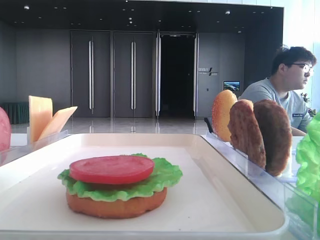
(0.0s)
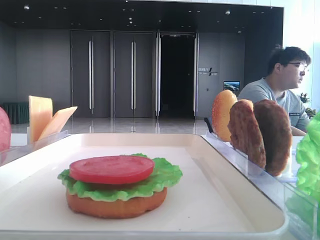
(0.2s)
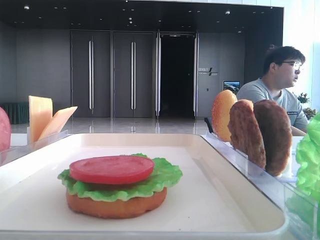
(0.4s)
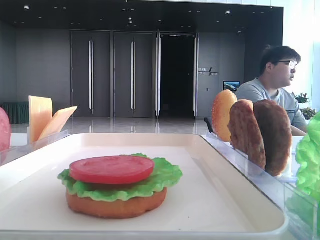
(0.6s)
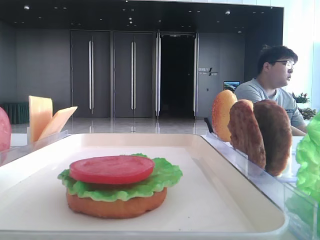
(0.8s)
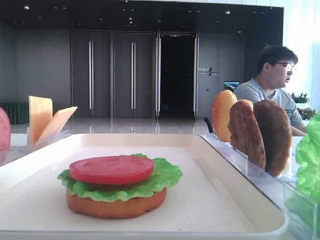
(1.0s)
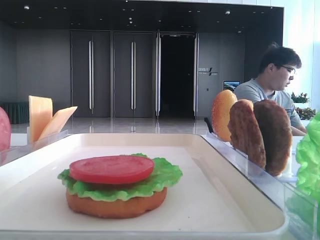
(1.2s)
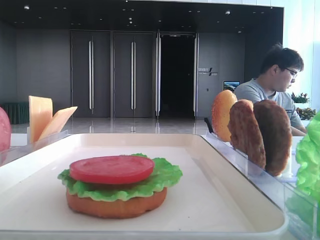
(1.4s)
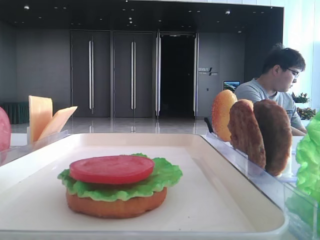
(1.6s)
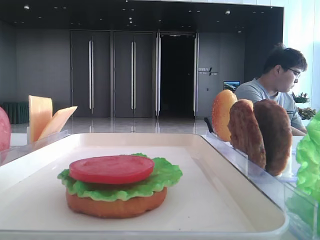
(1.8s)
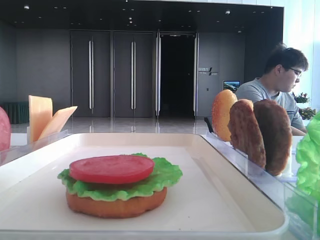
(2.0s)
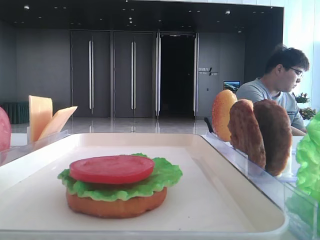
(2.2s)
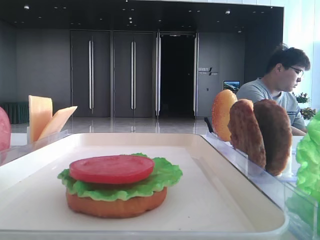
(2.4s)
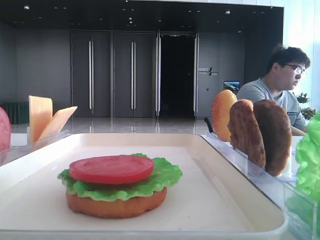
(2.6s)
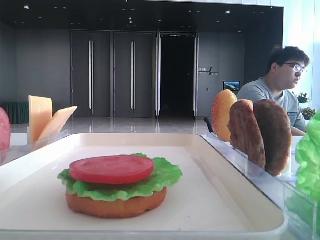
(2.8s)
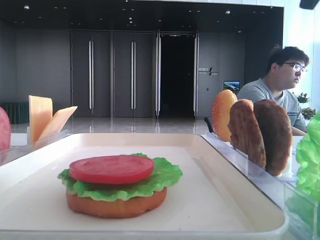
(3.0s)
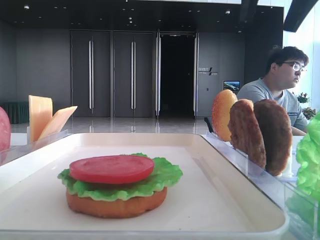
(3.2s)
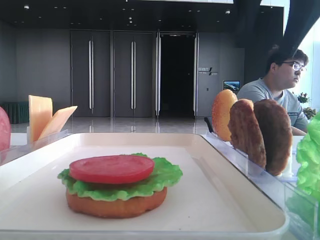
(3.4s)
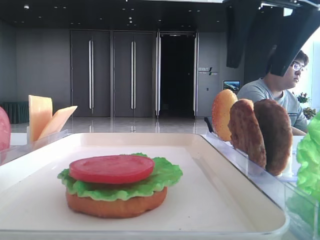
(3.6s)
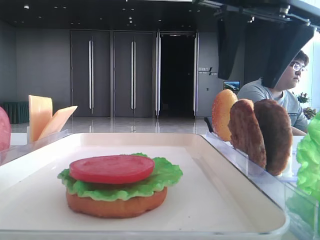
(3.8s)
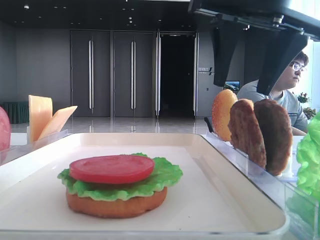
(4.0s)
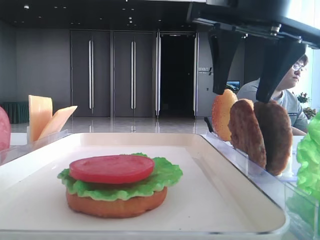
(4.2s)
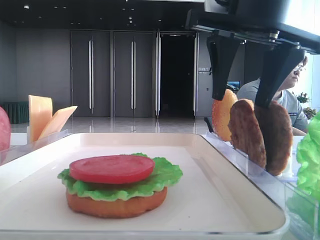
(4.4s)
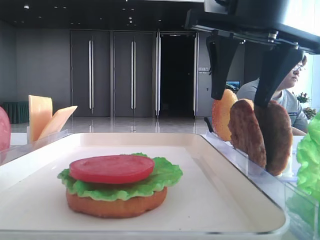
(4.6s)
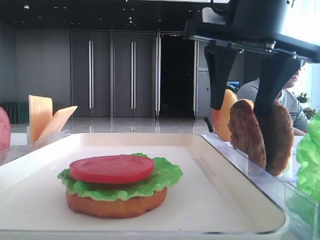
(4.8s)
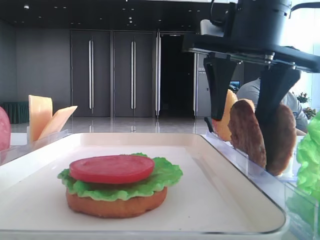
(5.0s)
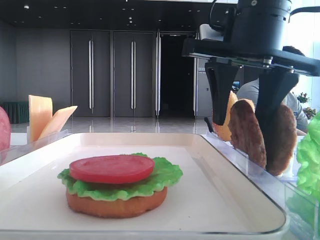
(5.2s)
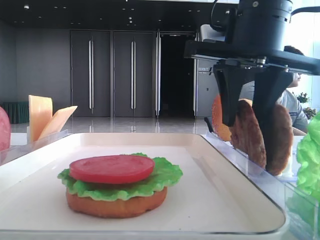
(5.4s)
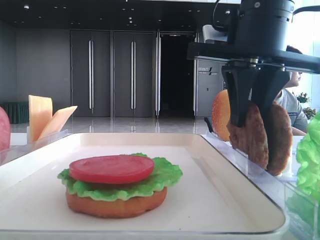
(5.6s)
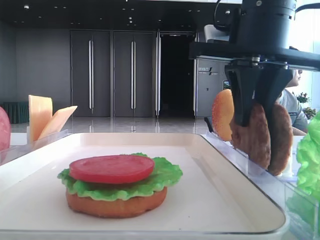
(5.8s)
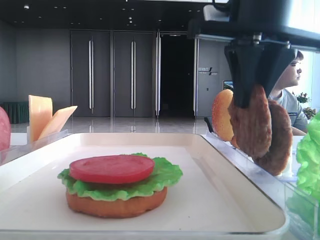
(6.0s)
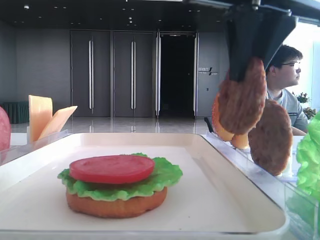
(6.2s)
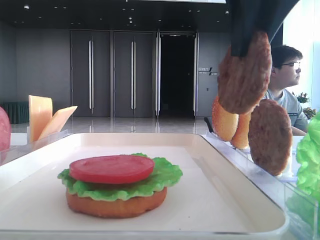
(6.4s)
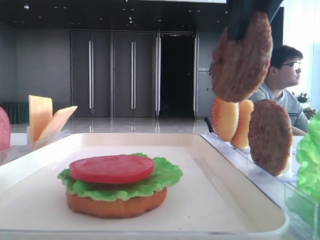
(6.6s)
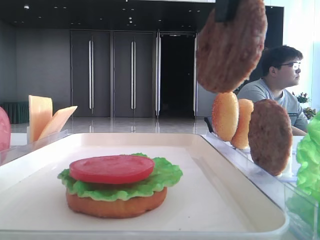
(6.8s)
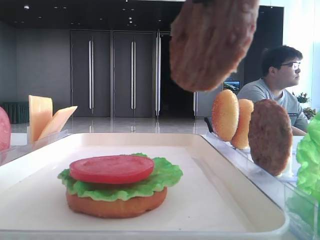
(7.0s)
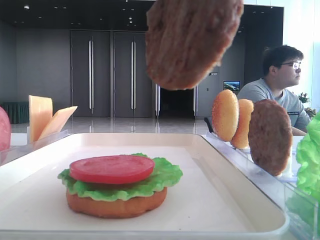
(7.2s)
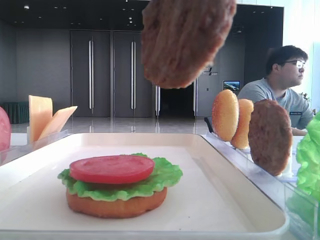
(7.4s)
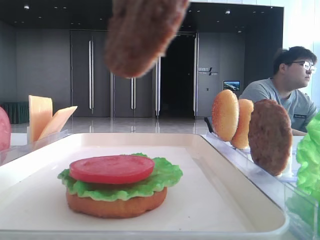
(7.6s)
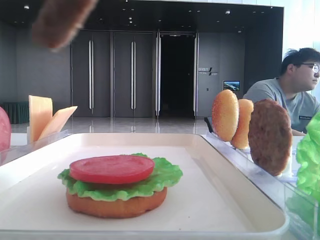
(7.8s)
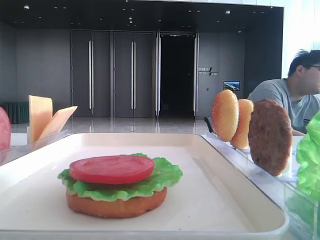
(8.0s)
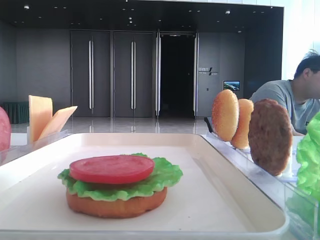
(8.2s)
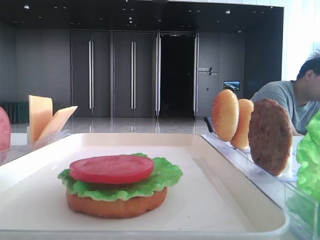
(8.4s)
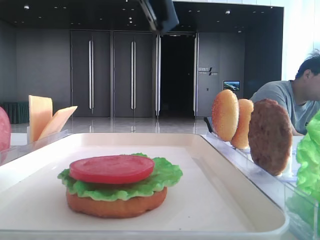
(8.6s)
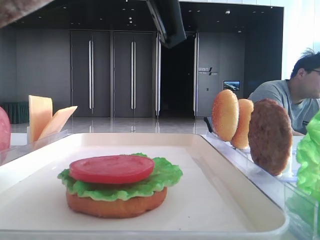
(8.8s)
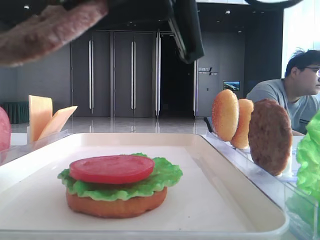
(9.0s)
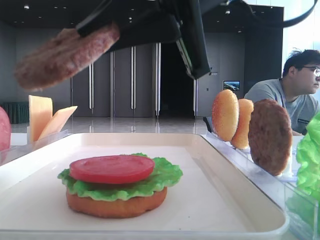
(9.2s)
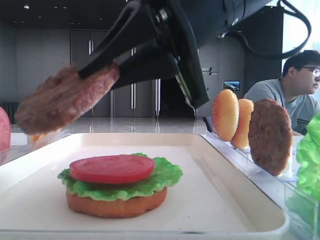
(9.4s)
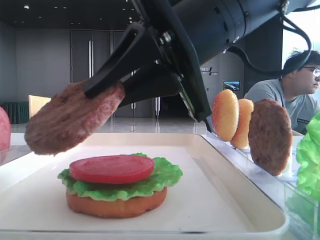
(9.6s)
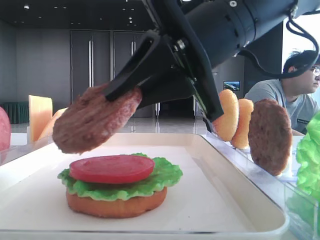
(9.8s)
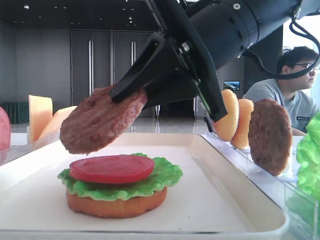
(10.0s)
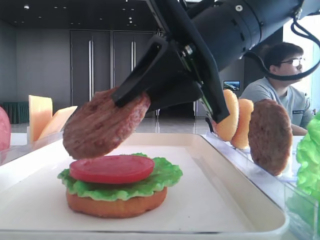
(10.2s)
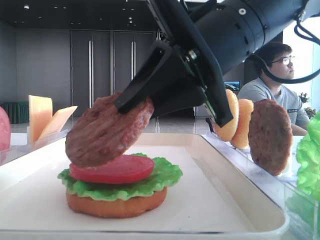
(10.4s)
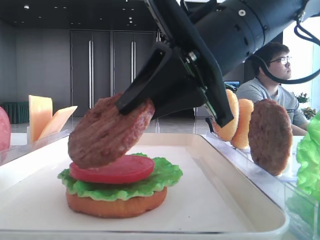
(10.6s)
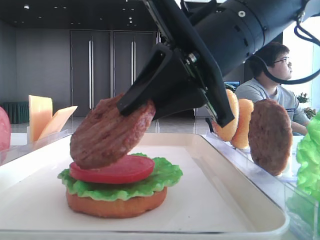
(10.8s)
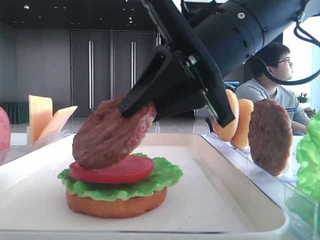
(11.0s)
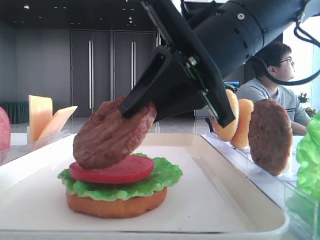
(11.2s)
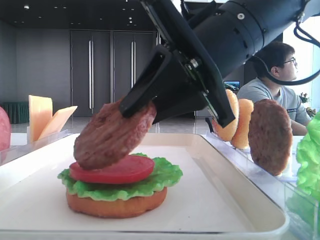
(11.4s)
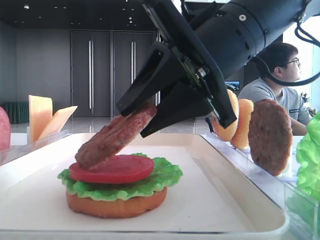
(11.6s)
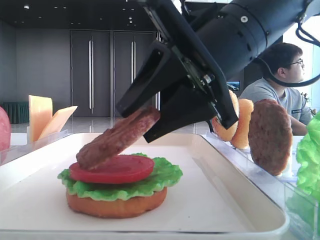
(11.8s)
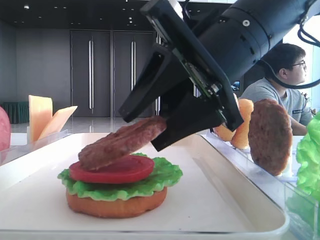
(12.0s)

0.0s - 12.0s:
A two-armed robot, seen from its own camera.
Step, 0.0s - 5.6s: Grab the patty with the right hand.
1.6s - 3.0s: The right gripper goes about 15 cm to the left and forward.
3.0s - 4.4s: The right gripper is displaced downward and forward by roughly 10 cm.
4.4s - 6.0s: The right gripper closes its fingers.
6.0s - 7.6s: The right gripper moves backward, upward and to the left, about 20 cm.
7.6s - 9.0s: The right gripper is displaced forward and downward by about 10 cm.
9.0s - 10.4s: The right gripper travels downward by about 5 cm.
10.4s - 12.0s: The left gripper closes its fingers; the right gripper opens.

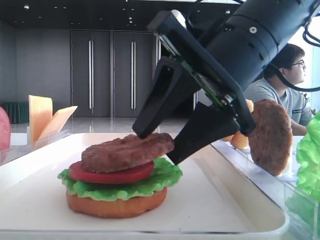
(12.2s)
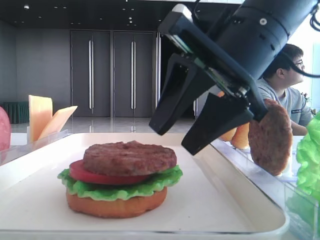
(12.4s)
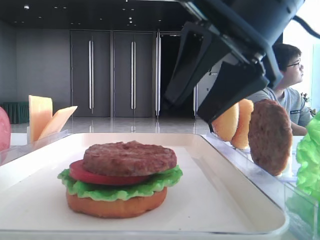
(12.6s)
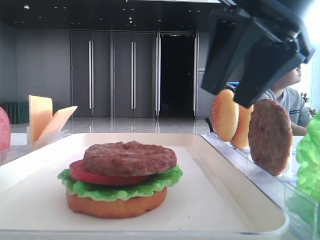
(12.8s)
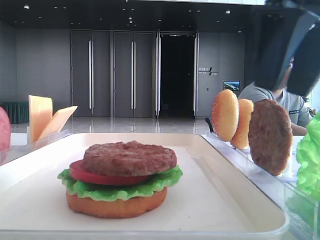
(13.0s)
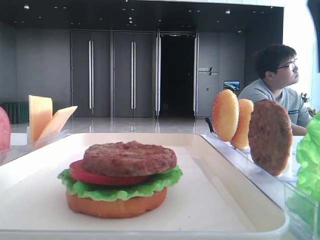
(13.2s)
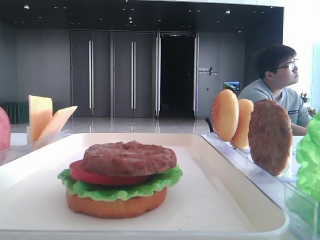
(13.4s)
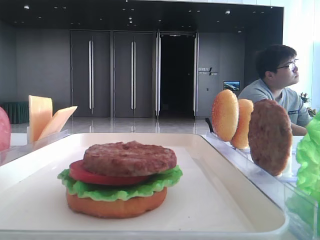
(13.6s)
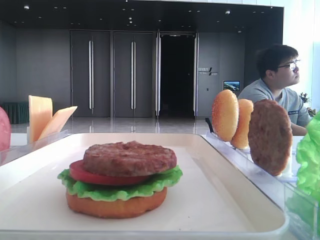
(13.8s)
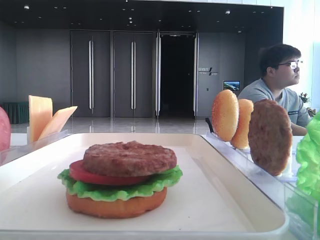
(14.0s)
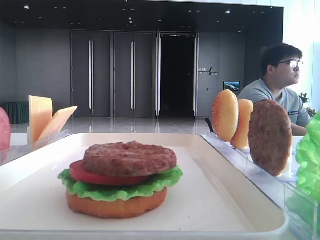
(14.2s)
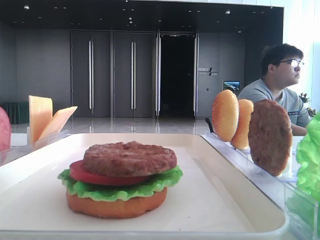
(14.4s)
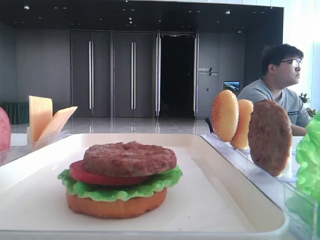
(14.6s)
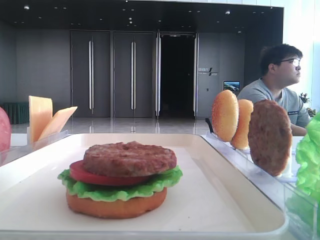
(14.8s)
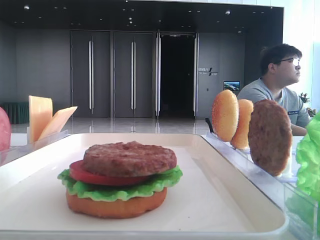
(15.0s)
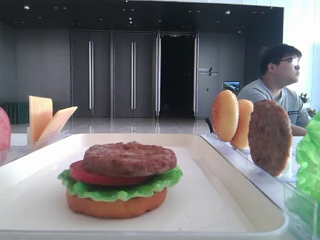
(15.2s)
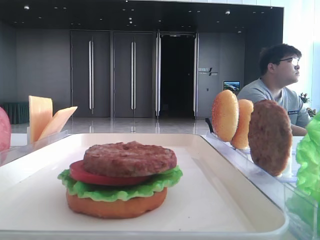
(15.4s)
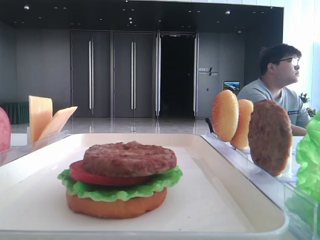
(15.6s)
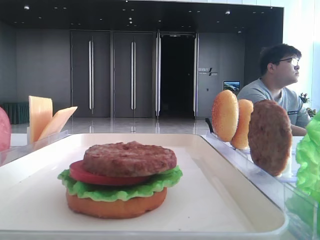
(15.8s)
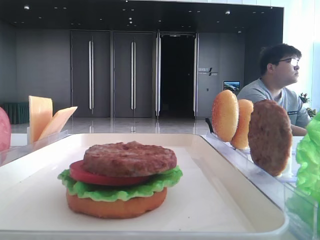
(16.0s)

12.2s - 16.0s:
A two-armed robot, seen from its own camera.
12.2s - 13.4s: The right gripper heads to the right and upward, covering some 20 cm.
13.4s - 14.8s: The right gripper is displaced backward by some 20 cm.

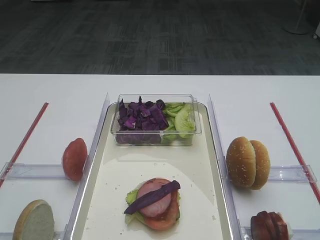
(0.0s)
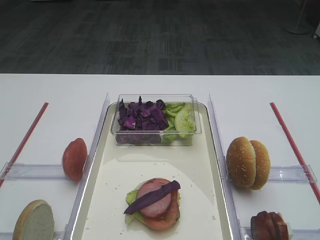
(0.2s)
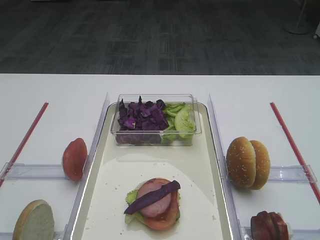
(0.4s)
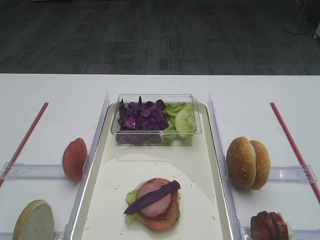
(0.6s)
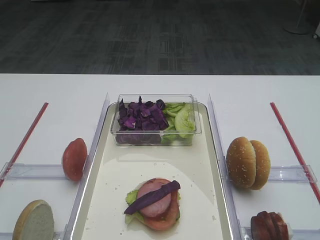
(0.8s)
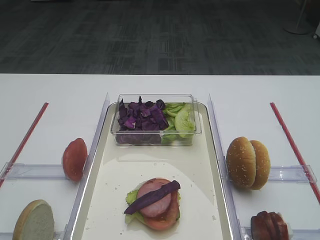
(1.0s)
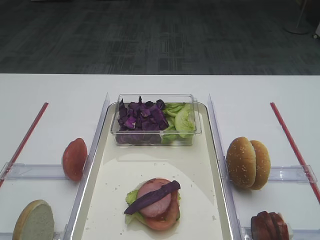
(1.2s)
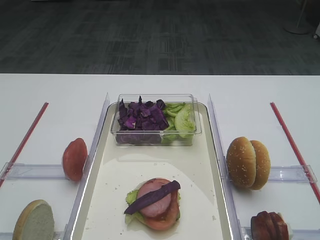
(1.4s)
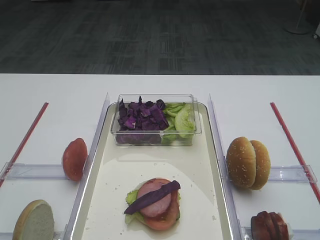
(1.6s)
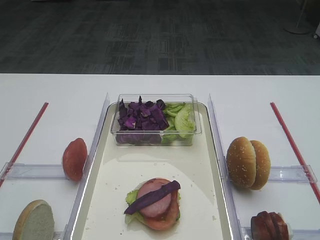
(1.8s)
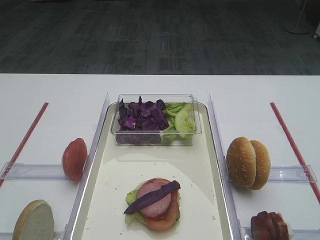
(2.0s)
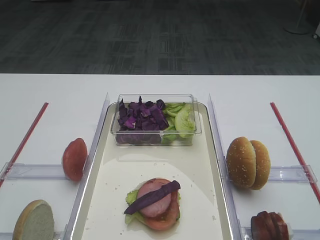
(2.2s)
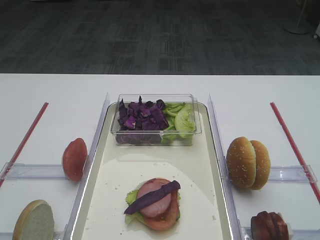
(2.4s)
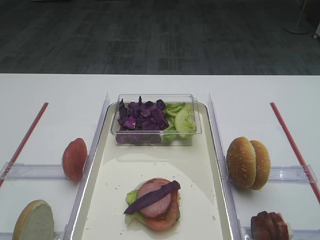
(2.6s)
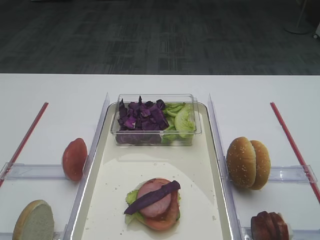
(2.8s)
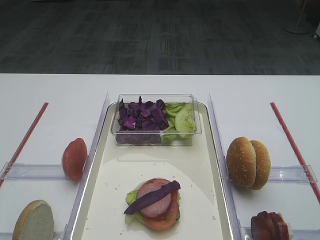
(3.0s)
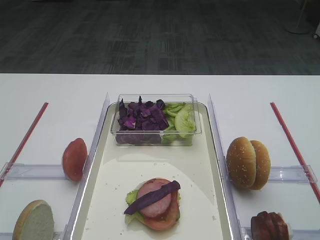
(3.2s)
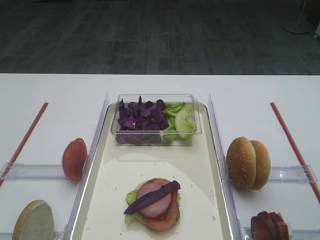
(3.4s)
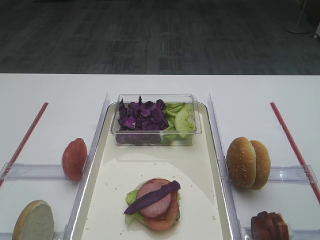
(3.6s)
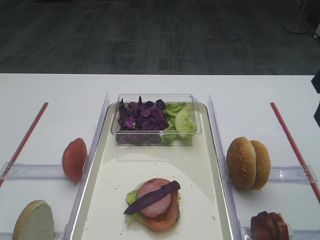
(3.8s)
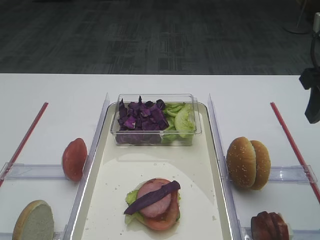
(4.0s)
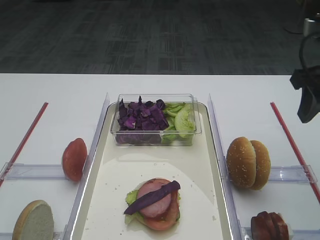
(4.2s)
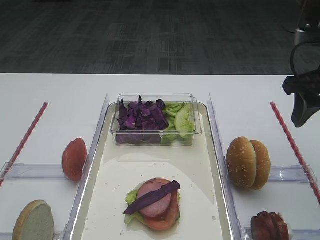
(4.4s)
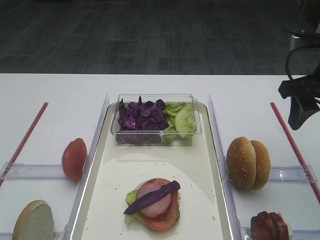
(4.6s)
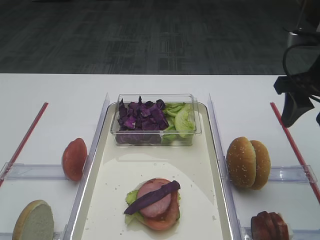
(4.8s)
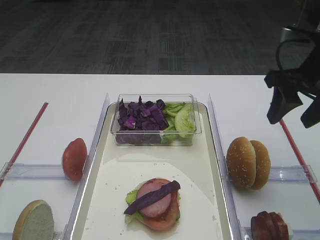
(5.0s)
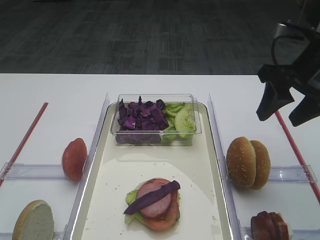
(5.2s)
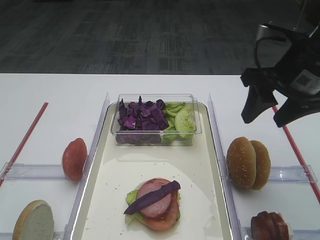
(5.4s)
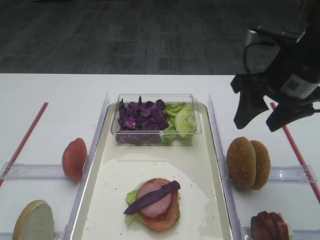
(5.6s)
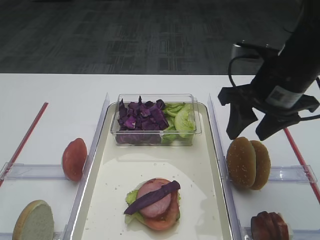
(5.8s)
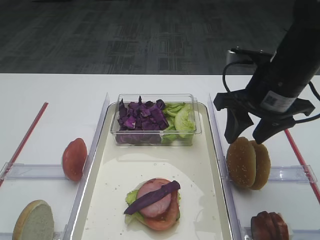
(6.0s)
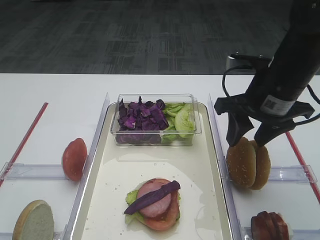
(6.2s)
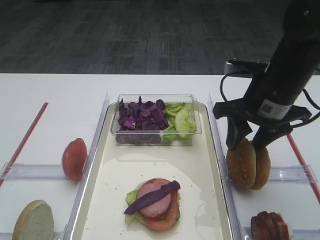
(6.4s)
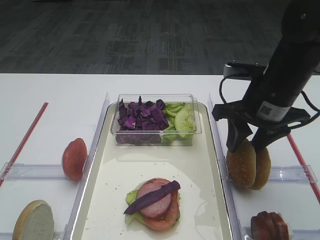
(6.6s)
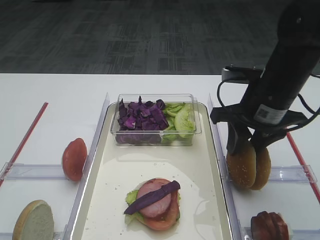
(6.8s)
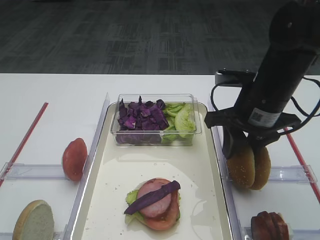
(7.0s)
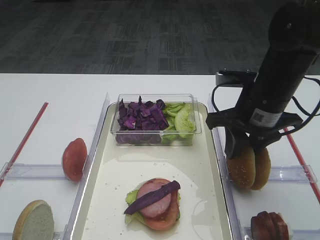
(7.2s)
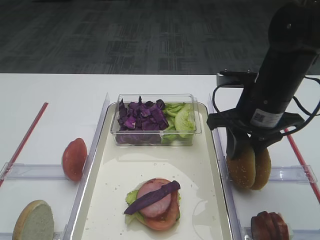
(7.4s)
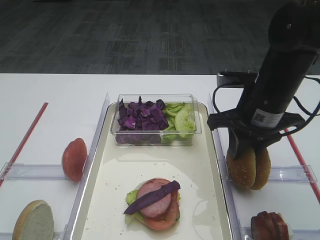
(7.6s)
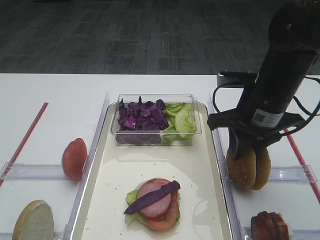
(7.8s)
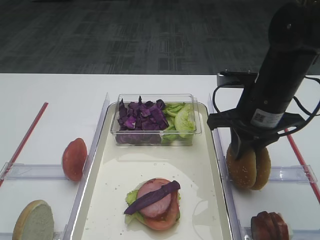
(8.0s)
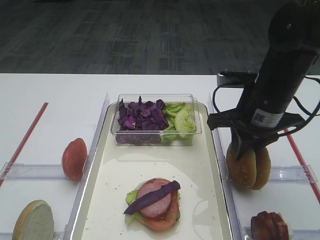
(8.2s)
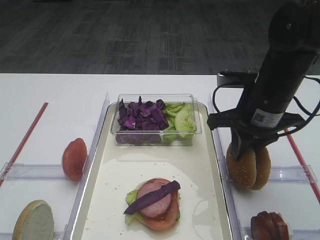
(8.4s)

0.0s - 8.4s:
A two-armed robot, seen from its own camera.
2.8s - 4.2s: The right gripper travels forward by roughly 15 cm.
4.2s - 5.6s: The right gripper shifts roughly 5 cm to the left.
5.6s - 7.0s: The right gripper heads downward, covering roughly 5 cm, and closes.
7.0s - 8.4s: The right gripper closes its fingers.
